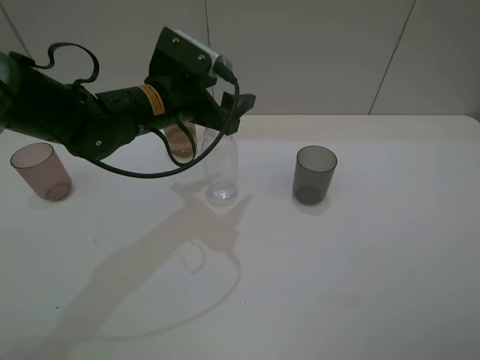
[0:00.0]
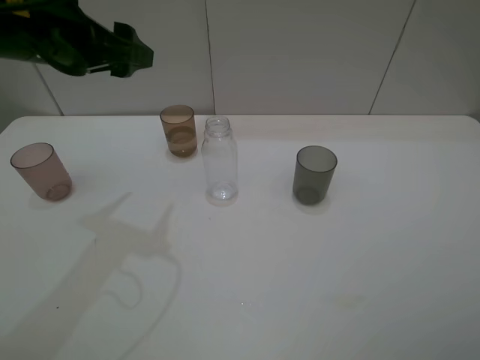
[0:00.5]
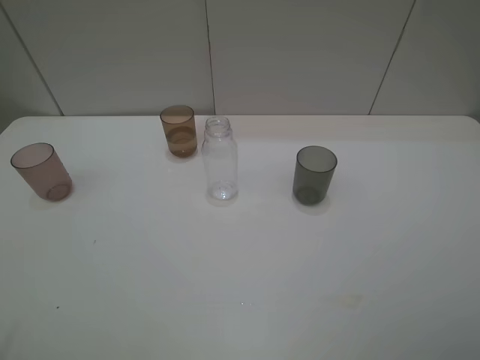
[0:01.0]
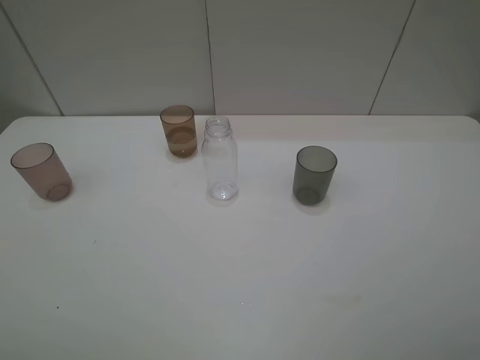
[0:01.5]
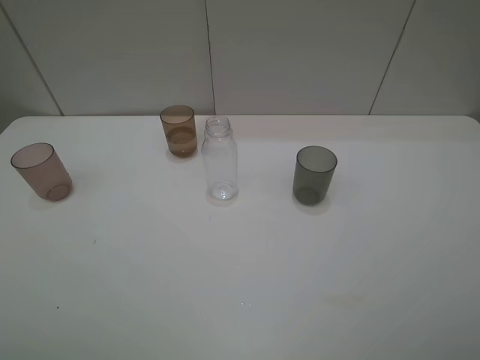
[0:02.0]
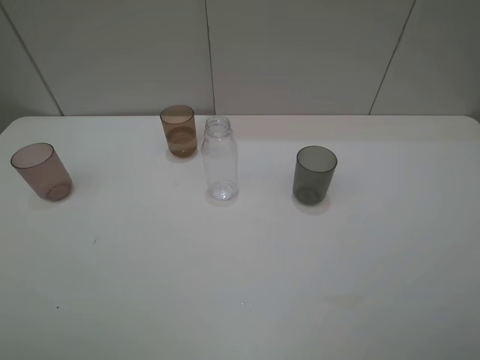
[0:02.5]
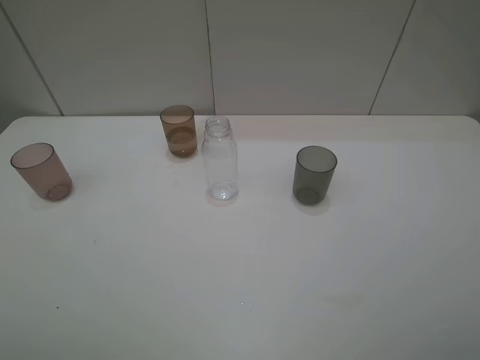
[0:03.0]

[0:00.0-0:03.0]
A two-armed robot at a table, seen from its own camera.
Task of the whole recording: pick up the bottle filled with water and pour water into the middle cup of the three cups.
0:00.0 to 0:01.5: The left gripper goes roughly 40 cm backward, to the left and upward.

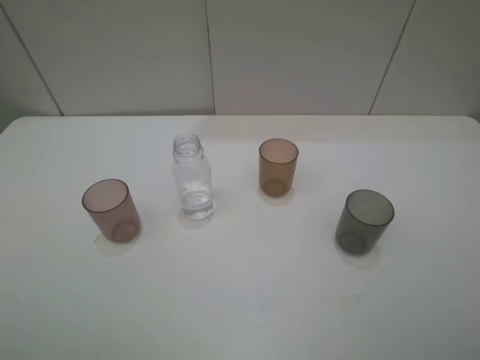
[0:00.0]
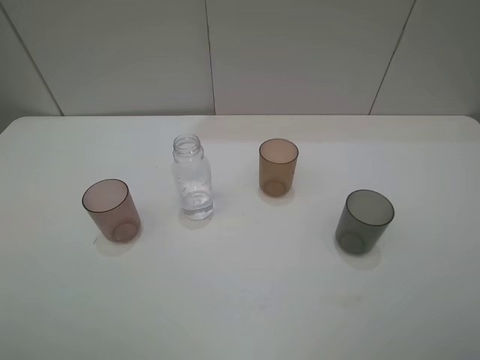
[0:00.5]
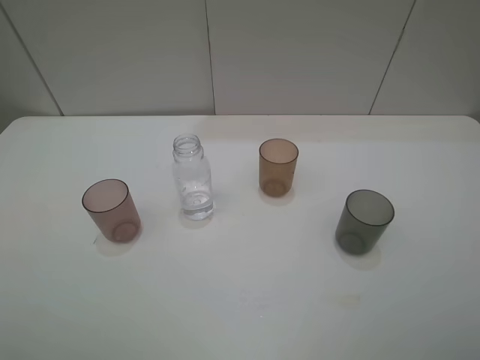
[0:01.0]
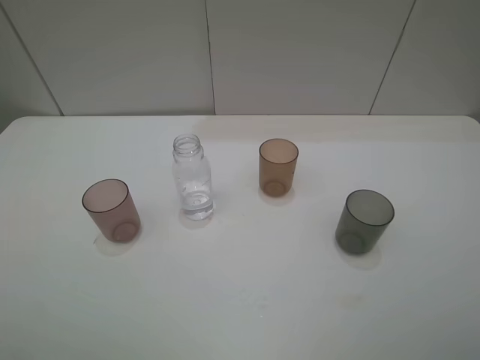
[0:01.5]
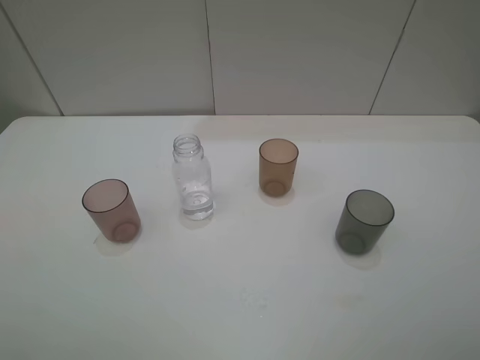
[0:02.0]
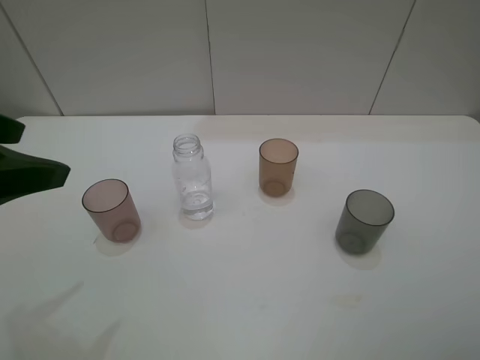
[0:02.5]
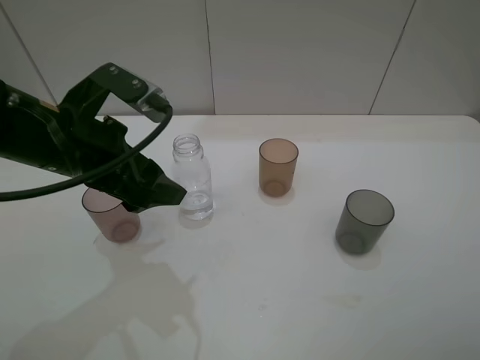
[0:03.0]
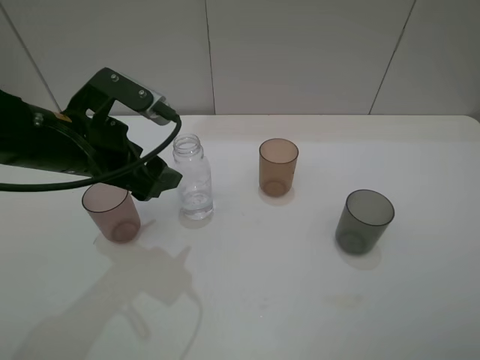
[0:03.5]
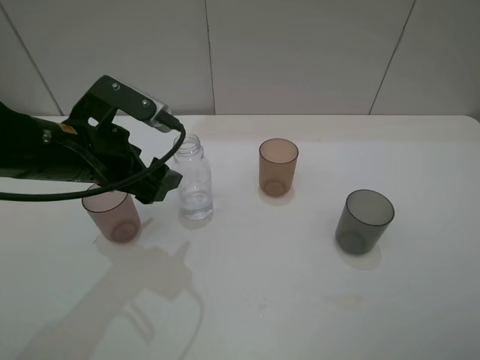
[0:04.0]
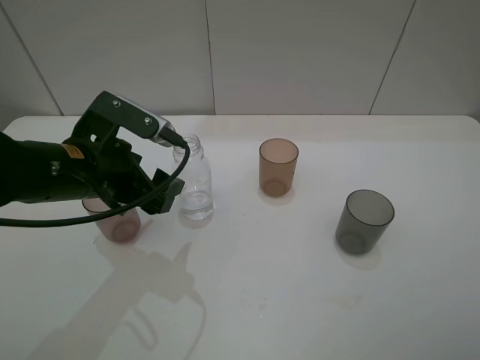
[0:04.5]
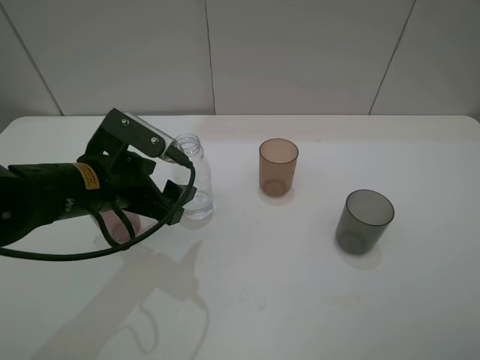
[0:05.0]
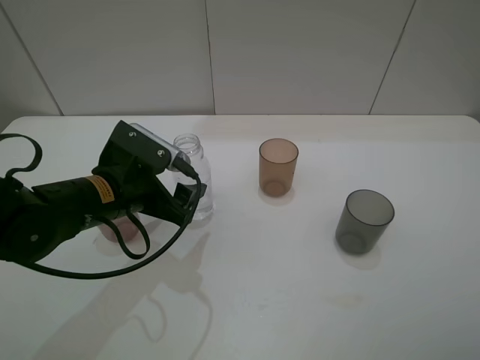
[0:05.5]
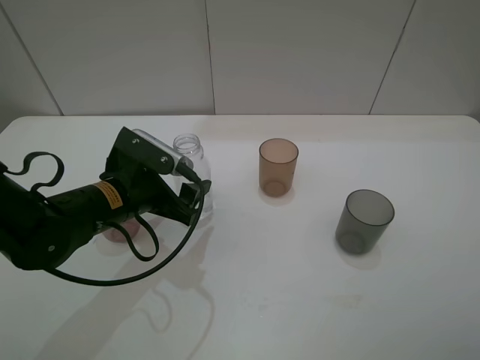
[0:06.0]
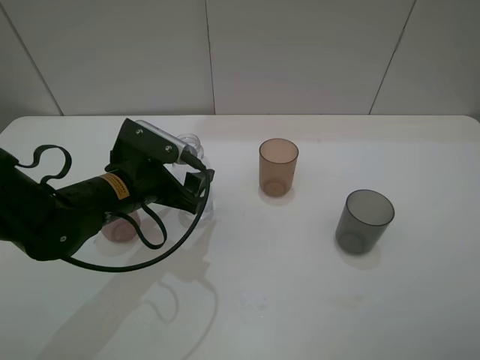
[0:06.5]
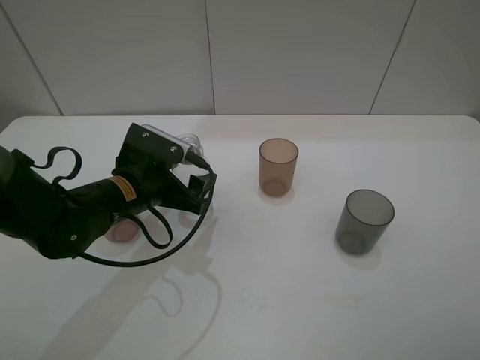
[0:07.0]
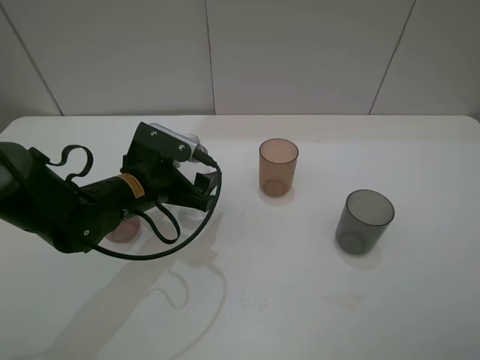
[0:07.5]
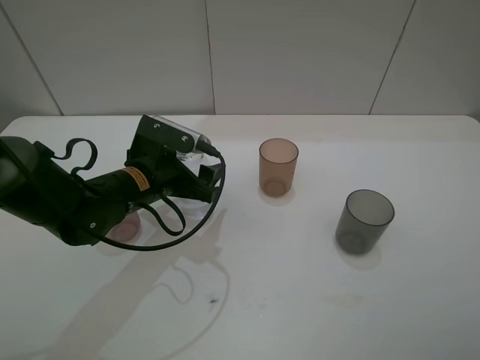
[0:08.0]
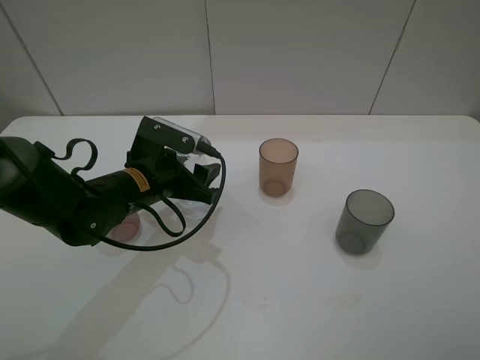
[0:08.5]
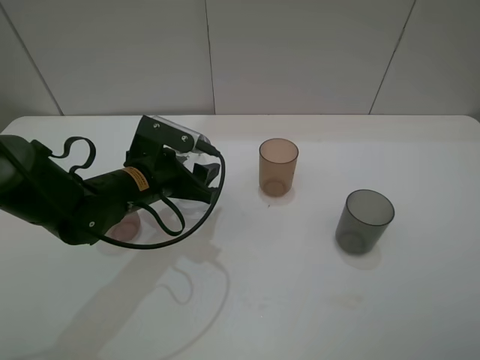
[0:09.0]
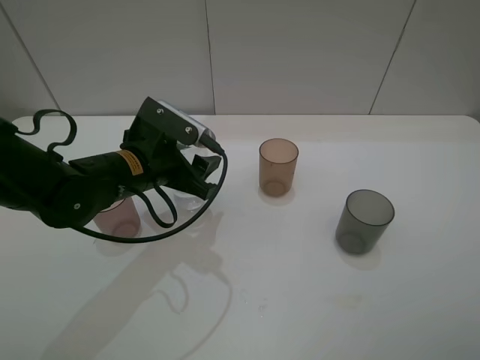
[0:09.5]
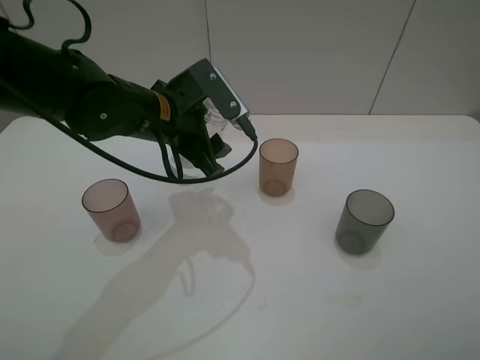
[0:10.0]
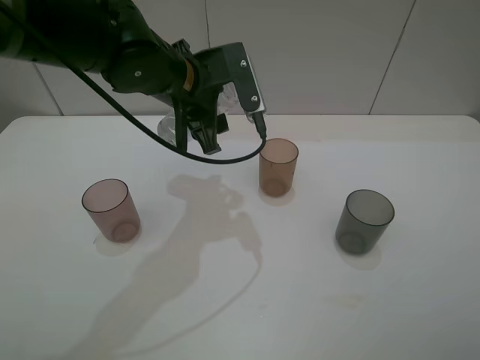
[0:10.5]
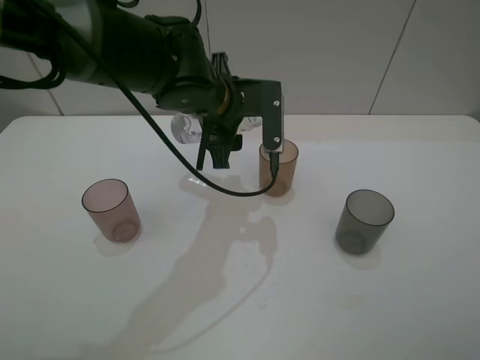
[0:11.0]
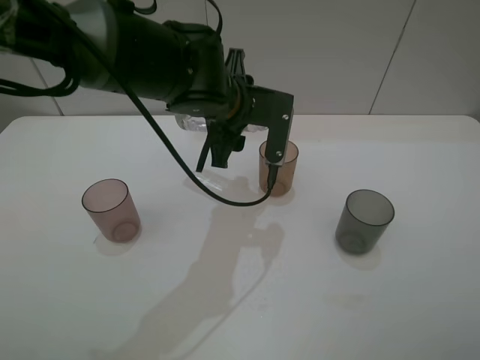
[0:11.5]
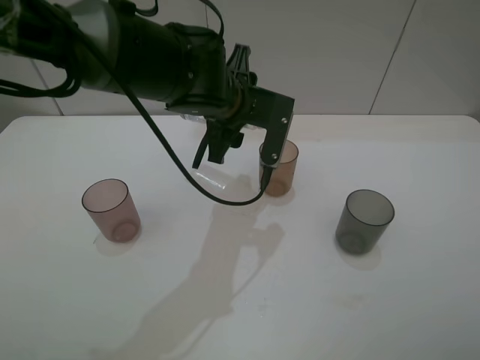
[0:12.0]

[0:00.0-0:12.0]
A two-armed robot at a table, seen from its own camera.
Task of the whole recording: pick up the bottle filled with water and pour water into the middle cup of the three cups.
Step, 0:00.0 to 0:08.5: Grasp the transparent bottle with the left gripper.
0:02.0 to 0:04.0: The left gripper travels forward, to the right and downward by roughly 30 cm.
0:04.0 to 0:06.0: The left gripper moves downward, some 10 cm.
0:06.0 to 0:08.0: The grippers stay close to where they were, moving slightly.
0:08.0 to 0:10.0: The left gripper goes roughly 10 cm upward, and closes.
0:10.0 to 0:12.0: The left gripper travels to the right by about 10 cm.

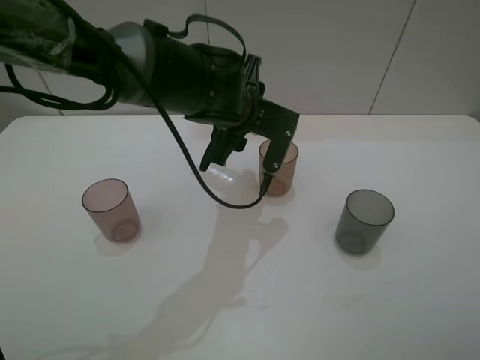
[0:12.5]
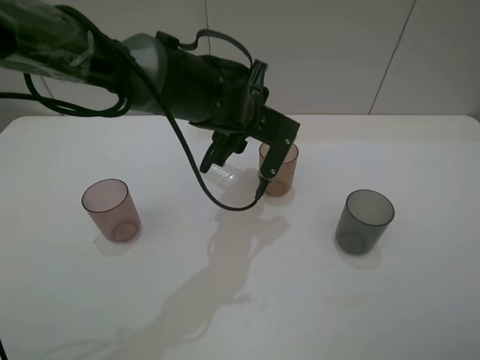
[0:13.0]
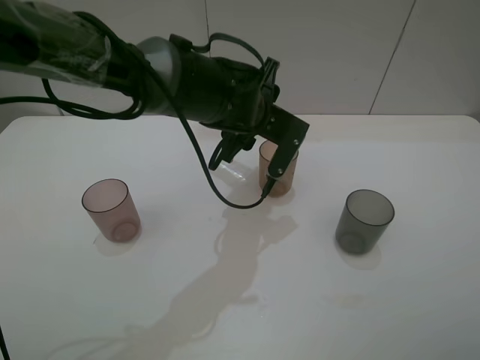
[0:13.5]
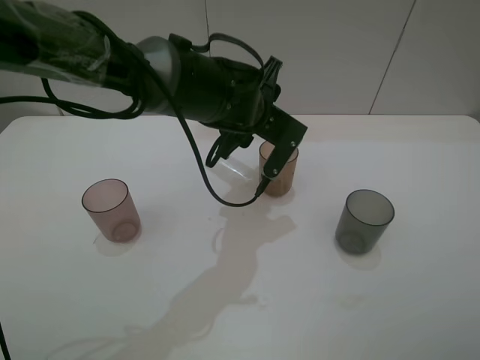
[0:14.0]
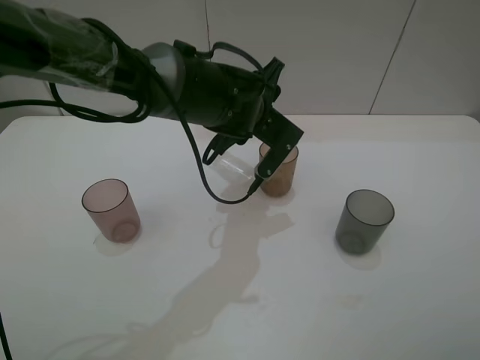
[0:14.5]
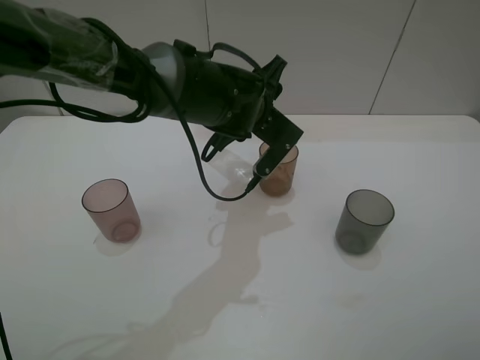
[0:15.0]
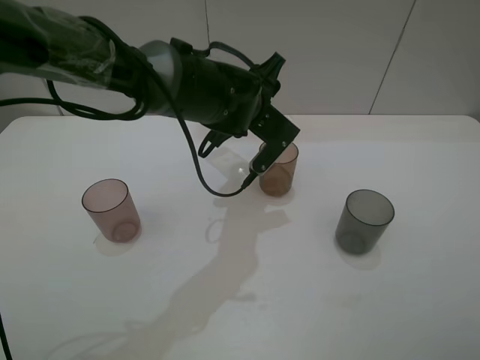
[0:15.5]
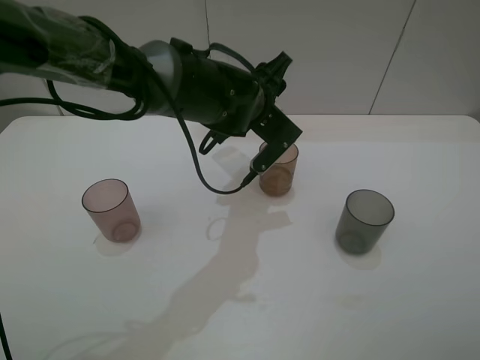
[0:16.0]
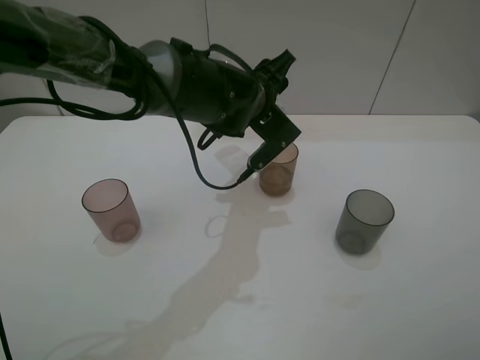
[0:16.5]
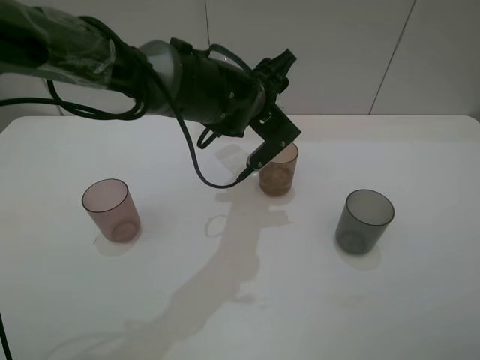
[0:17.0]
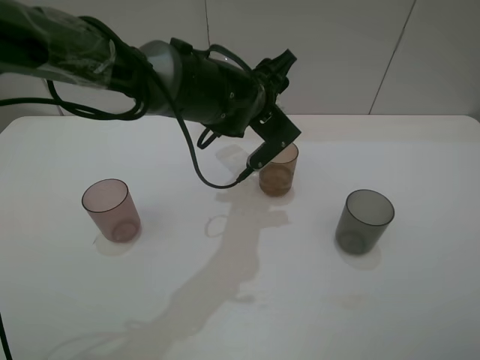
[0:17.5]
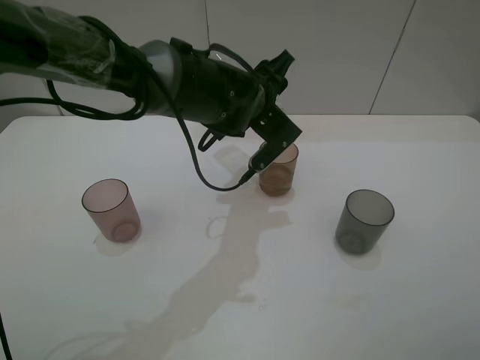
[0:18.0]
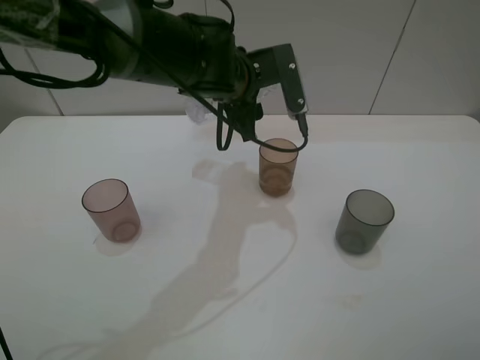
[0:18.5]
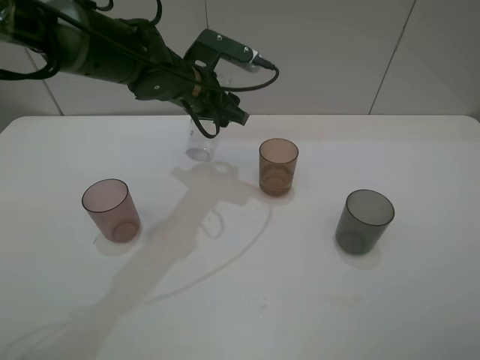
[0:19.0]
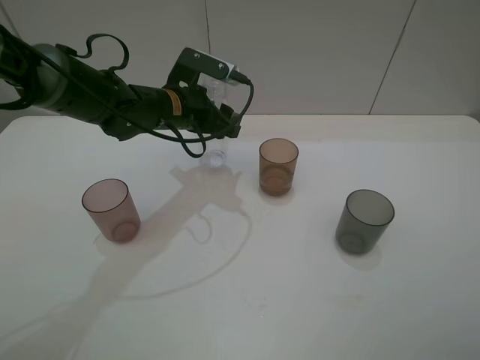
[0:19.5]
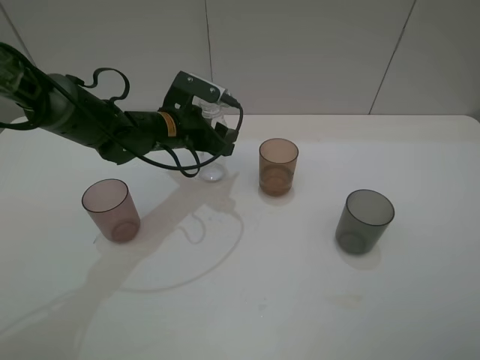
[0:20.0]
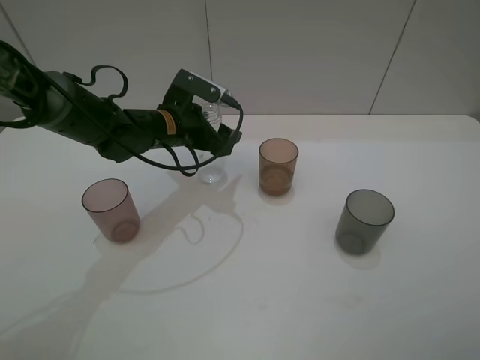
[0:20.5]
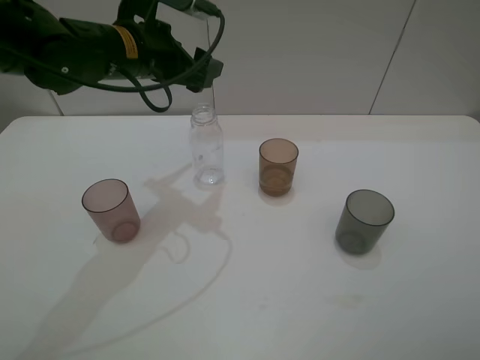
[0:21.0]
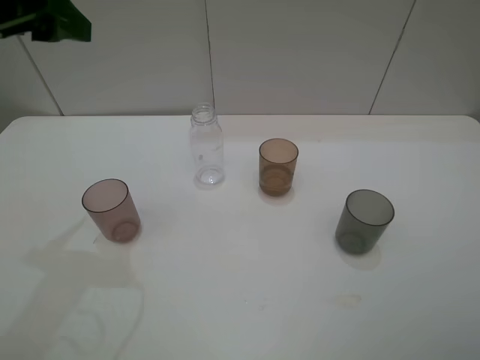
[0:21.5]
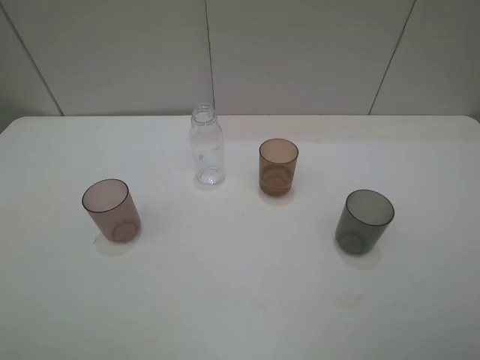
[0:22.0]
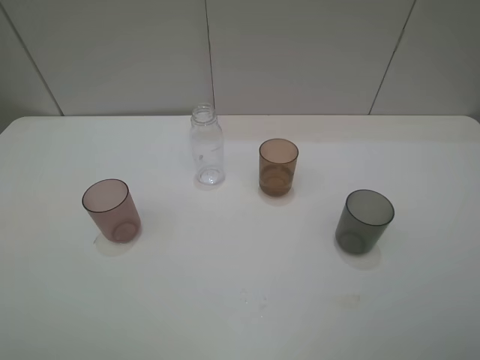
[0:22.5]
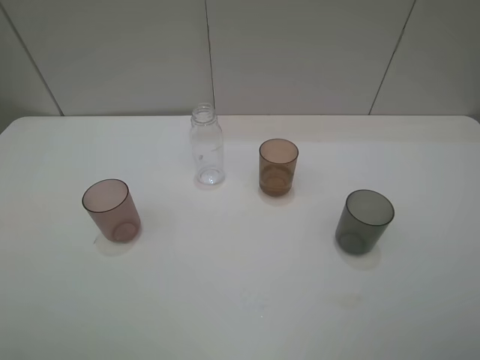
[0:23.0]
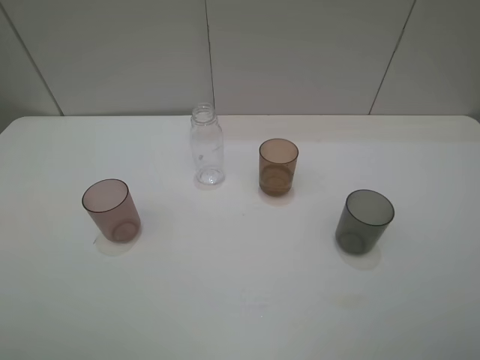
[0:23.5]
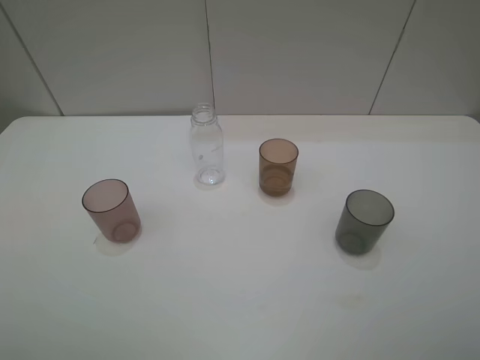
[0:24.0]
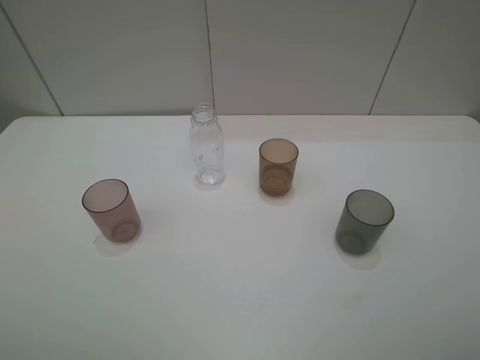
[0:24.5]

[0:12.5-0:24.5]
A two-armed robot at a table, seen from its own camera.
Task of the whole recording: pick up the bottle filled with water and pour water into the middle cup of the three cups.
Step, 0:12.5 to 0:18.0: Pour water from transparent bottle to brown cup with the left gripper.
Step, 0:18.5 to 0:20.5: Place the transparent bottle with the left gripper.
0:12.5 to 0:14.5: The grippers make only small movements.
0:14.5 to 0:16.5: The grippers move only a little.
0:18.5 to 0:20.5: The left gripper moves to the left and downward, about 10 cm, and opens up.
0:20.5 to 0:22.5: The left gripper moves backward, to the left and upward, roughly 50 cm.
